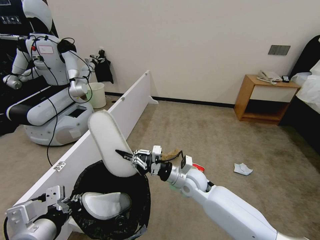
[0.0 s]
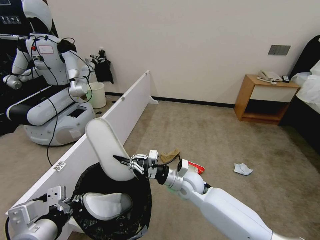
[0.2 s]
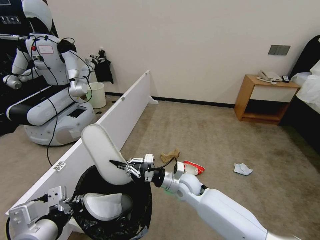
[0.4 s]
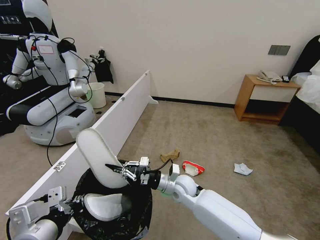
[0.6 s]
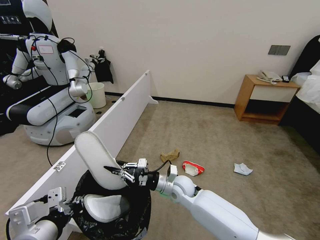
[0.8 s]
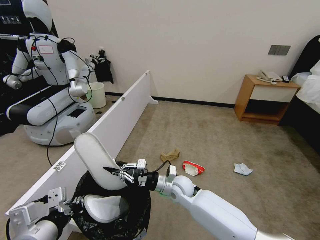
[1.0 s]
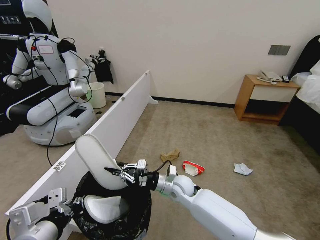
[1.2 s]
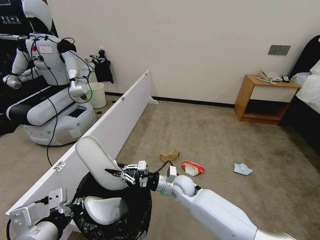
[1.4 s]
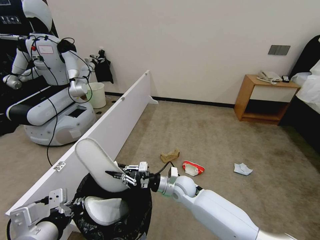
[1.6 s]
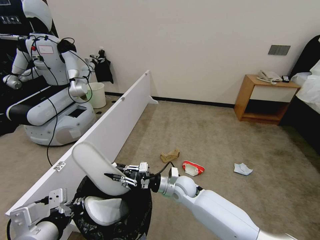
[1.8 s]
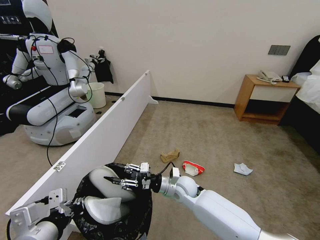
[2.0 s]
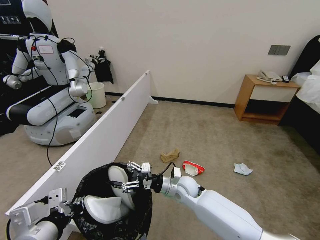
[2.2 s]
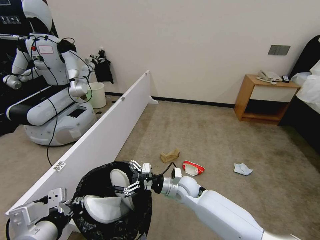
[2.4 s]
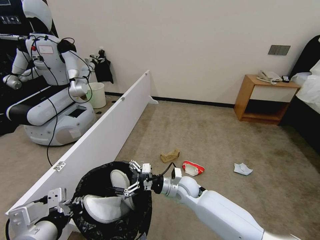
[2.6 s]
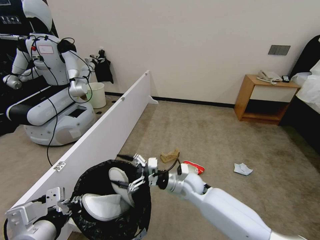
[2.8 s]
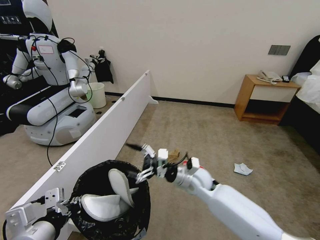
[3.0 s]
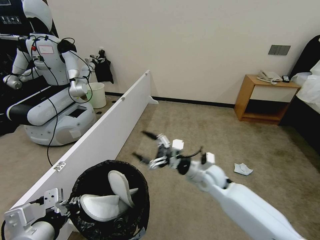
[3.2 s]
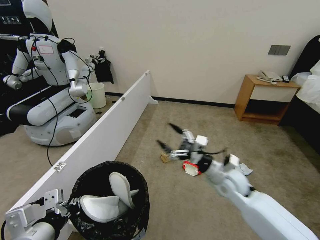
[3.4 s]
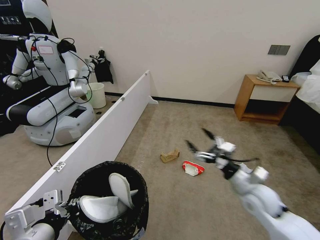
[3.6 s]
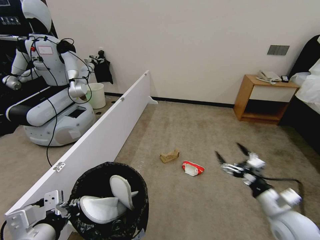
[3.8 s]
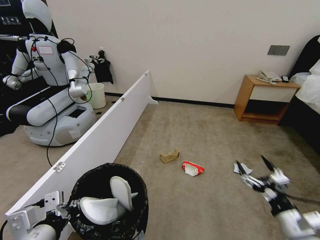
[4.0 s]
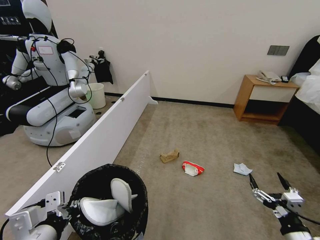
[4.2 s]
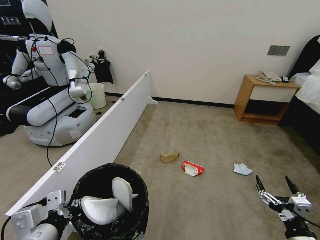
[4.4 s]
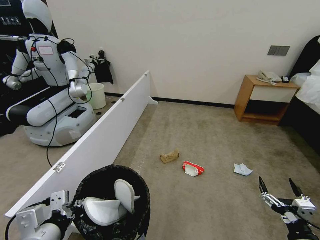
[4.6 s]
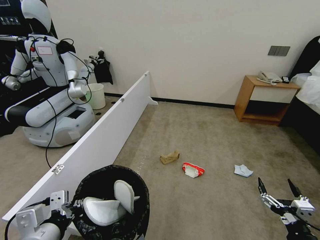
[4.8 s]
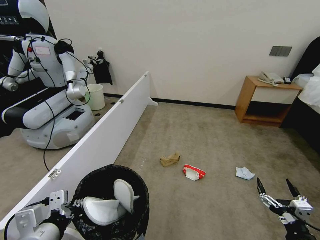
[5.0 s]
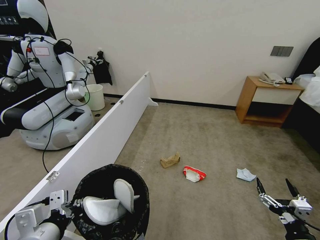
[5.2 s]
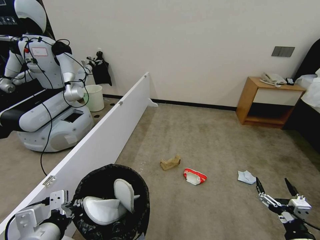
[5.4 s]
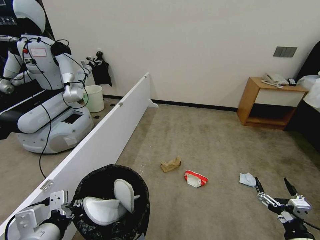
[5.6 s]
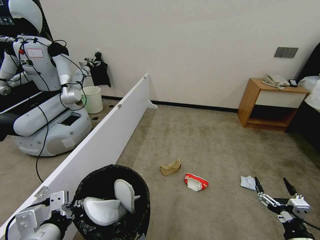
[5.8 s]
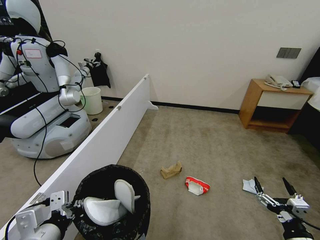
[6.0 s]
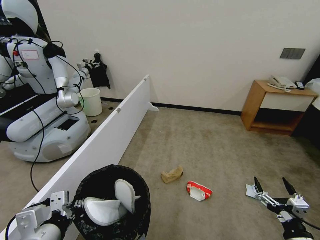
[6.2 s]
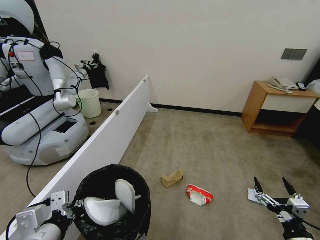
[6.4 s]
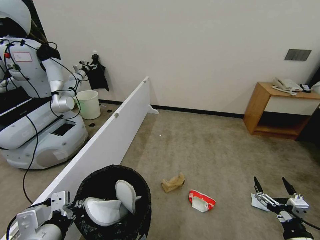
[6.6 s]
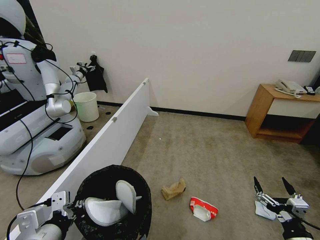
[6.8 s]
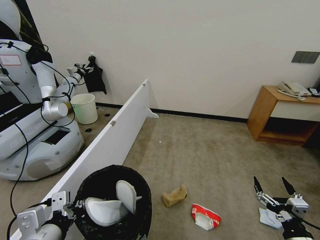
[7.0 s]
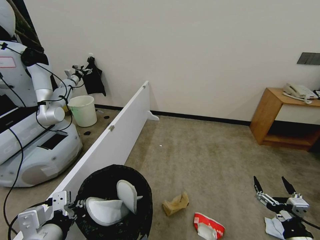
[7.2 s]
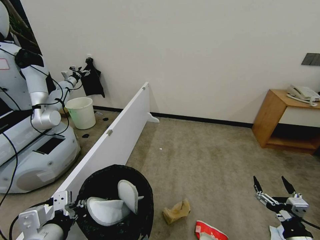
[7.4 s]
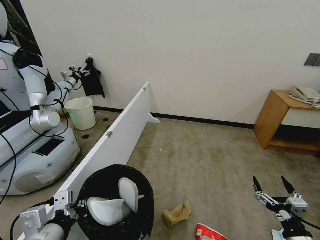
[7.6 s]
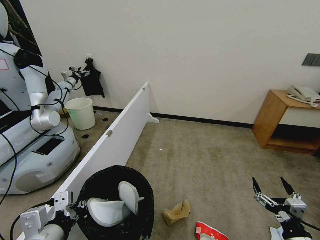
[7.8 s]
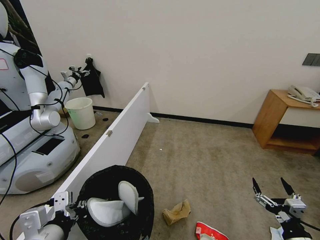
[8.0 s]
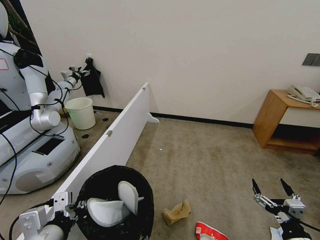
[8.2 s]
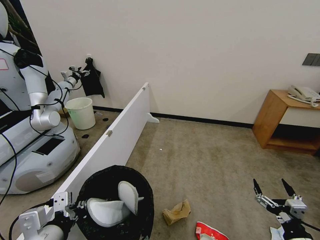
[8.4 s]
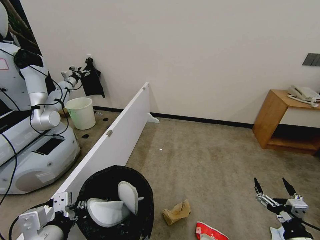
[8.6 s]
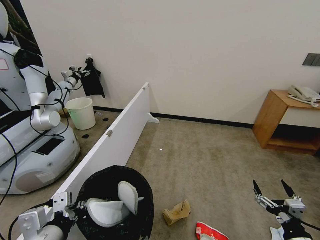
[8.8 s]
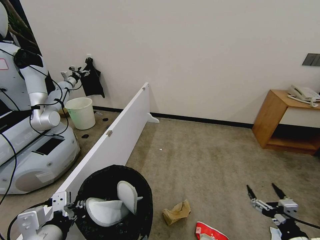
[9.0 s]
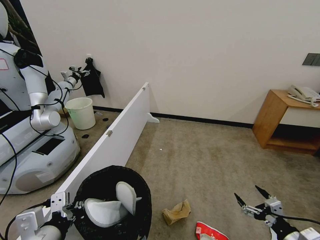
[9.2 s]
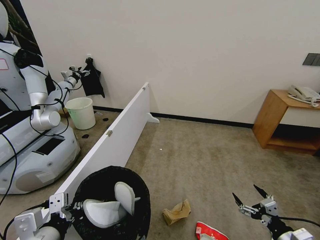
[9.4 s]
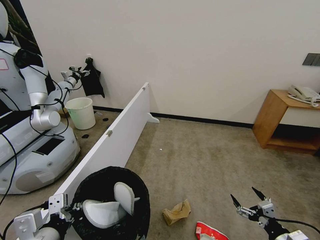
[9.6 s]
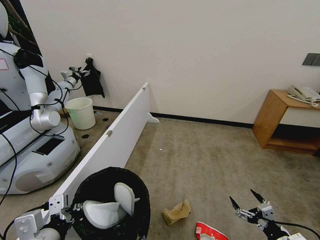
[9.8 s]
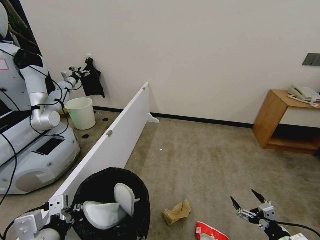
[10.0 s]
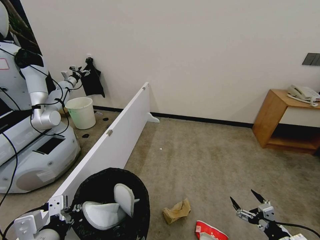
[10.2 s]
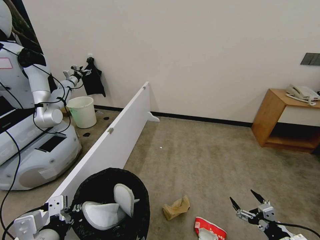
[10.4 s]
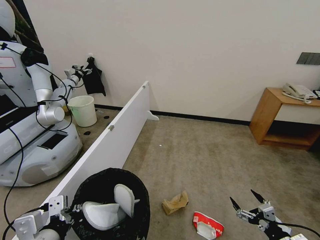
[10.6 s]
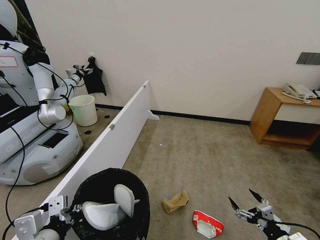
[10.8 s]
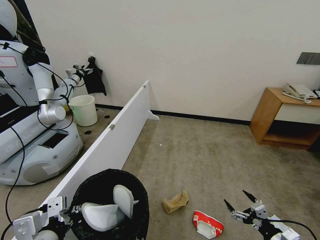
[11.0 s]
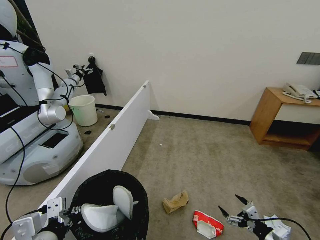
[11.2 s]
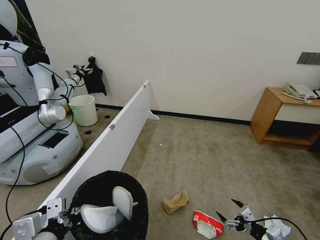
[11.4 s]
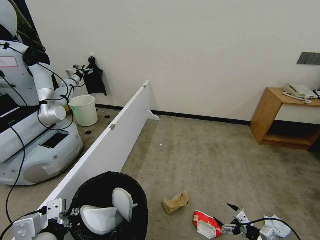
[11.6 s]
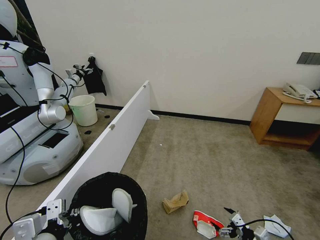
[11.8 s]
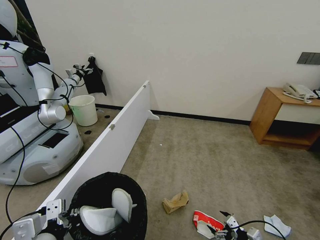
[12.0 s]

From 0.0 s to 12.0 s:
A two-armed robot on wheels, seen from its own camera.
Task of the whole recording: Pick up the trash bin, then pick up the garbage from the floor and place it into the trash bin.
From 0.0 s to 1.6 s: The right gripper shifts about 5 cm downward.
From 1.6 s to 3.0 s: The right gripper shifts some 5 cm upward, and opens its fingers.
From 3.0 s to 4.4 s: The right gripper goes roughly 35 cm backward and to the right.
From 7.6 s to 9.0 s: The grippers move only a little.
From 9.0 s to 10.4 s: The grippers make only small movements.
From 10.4 s to 12.0 s: The right gripper goes roughly 10 cm downward and forward.

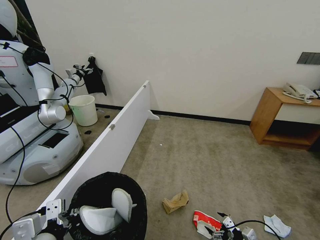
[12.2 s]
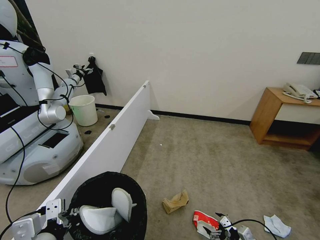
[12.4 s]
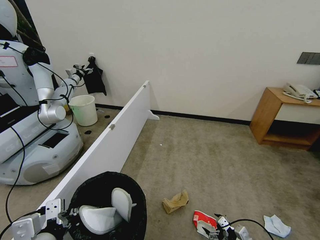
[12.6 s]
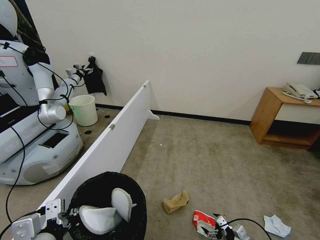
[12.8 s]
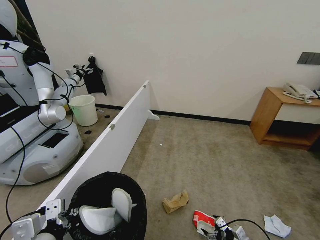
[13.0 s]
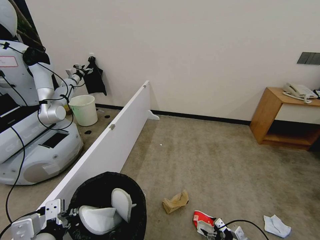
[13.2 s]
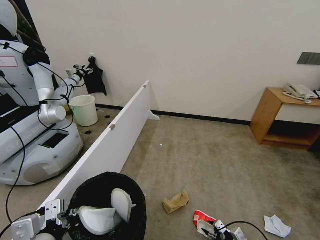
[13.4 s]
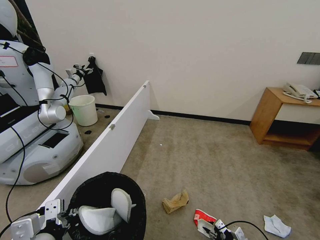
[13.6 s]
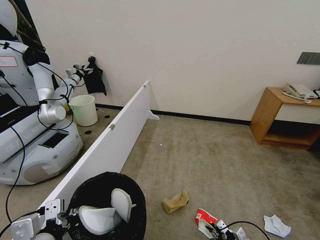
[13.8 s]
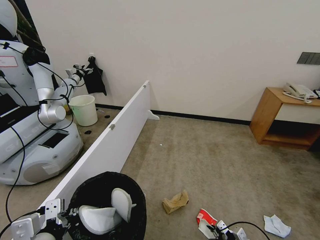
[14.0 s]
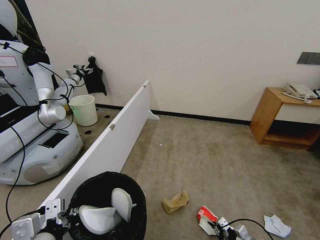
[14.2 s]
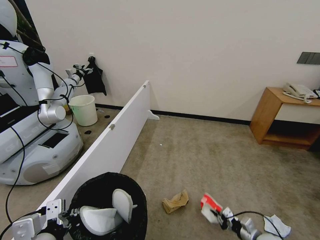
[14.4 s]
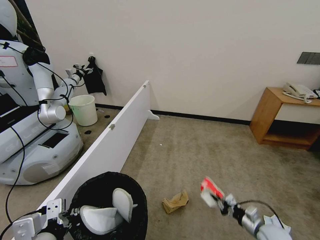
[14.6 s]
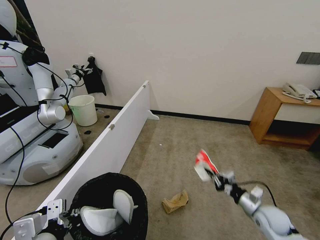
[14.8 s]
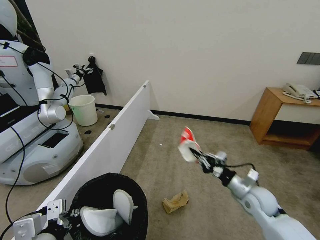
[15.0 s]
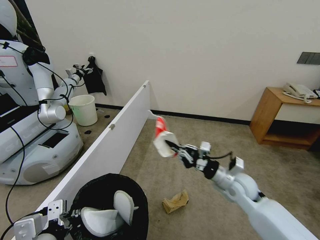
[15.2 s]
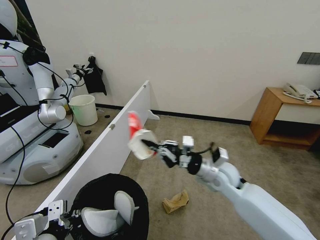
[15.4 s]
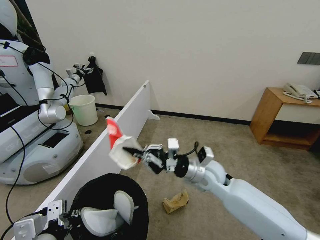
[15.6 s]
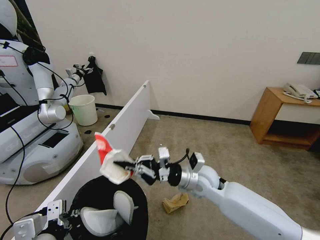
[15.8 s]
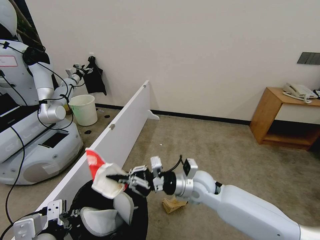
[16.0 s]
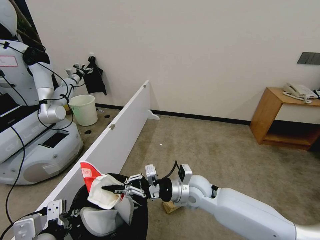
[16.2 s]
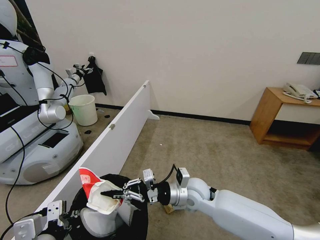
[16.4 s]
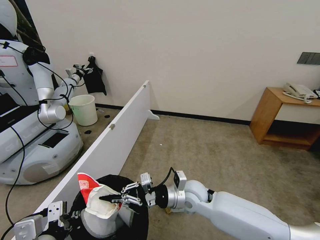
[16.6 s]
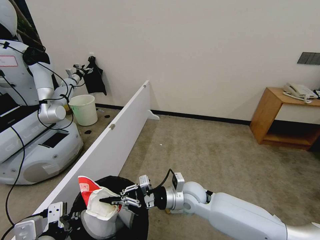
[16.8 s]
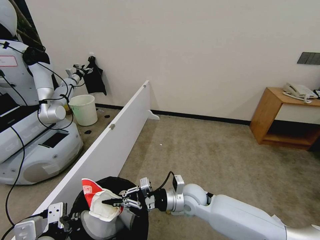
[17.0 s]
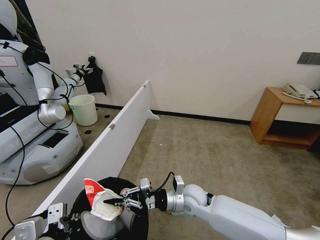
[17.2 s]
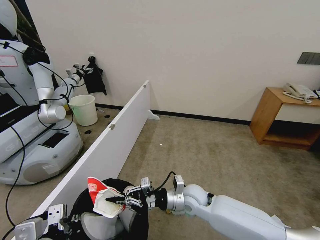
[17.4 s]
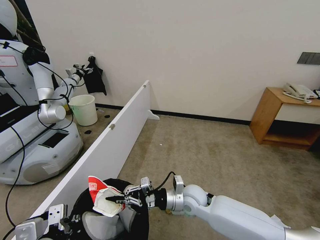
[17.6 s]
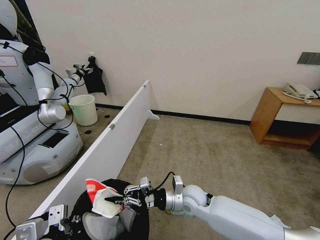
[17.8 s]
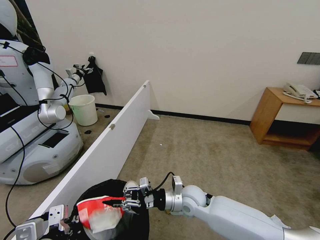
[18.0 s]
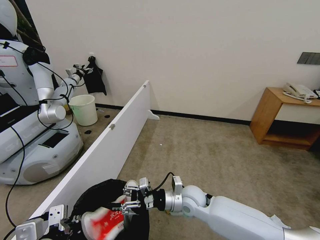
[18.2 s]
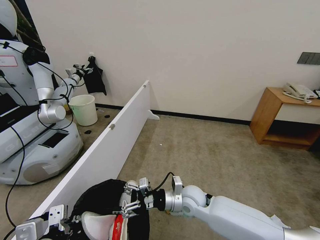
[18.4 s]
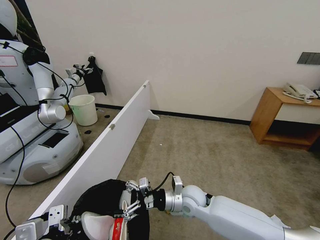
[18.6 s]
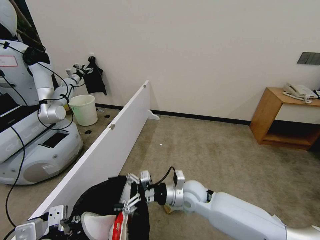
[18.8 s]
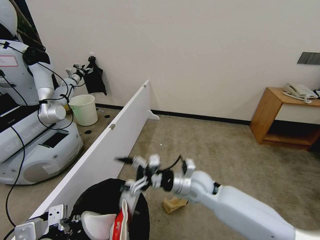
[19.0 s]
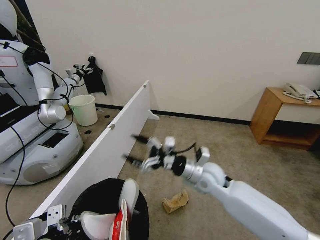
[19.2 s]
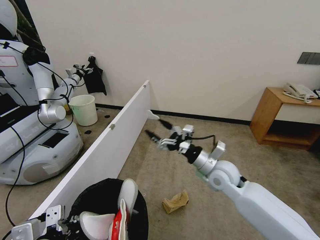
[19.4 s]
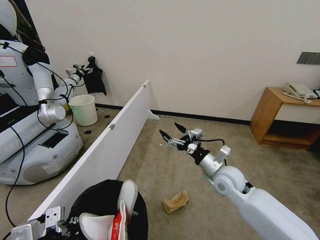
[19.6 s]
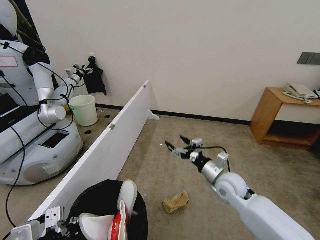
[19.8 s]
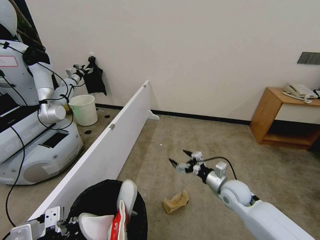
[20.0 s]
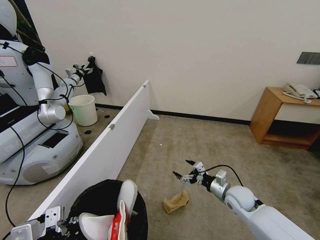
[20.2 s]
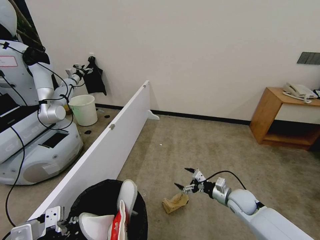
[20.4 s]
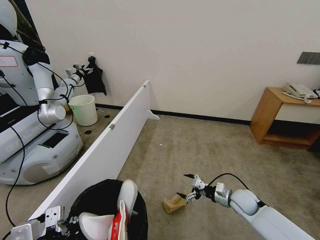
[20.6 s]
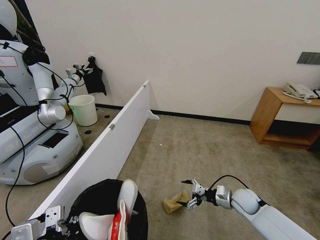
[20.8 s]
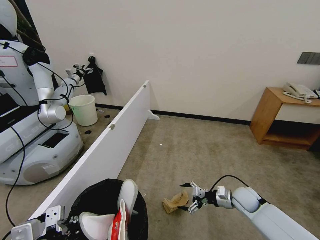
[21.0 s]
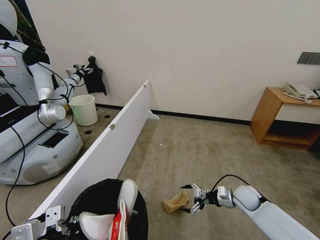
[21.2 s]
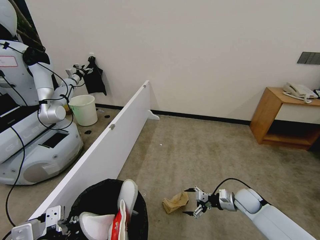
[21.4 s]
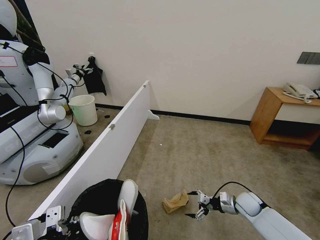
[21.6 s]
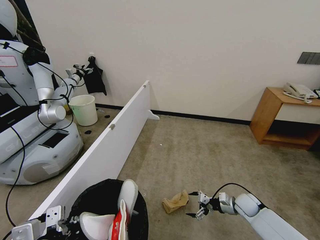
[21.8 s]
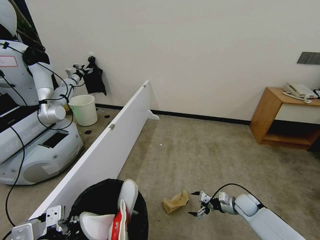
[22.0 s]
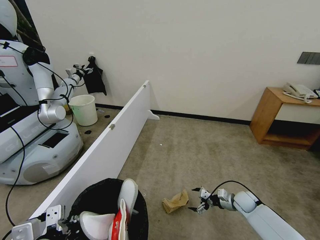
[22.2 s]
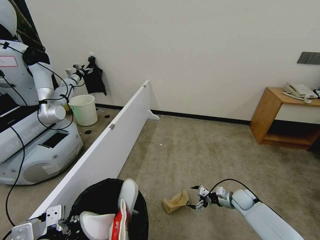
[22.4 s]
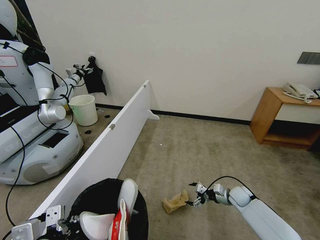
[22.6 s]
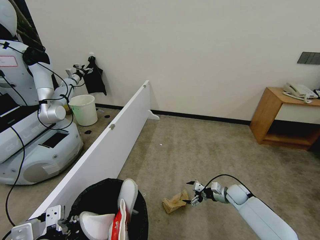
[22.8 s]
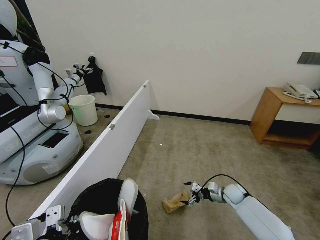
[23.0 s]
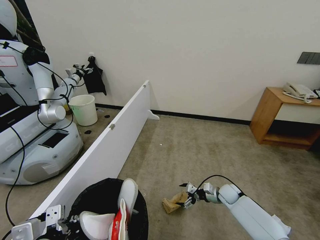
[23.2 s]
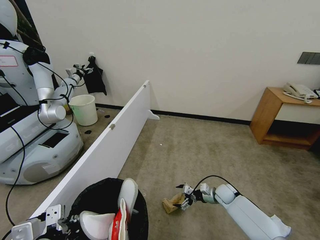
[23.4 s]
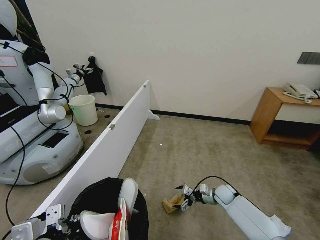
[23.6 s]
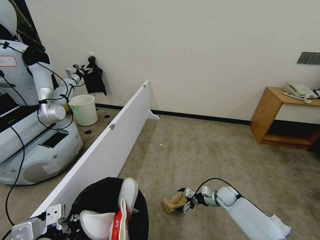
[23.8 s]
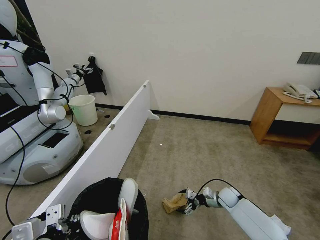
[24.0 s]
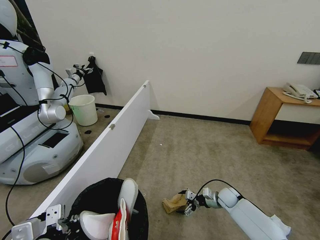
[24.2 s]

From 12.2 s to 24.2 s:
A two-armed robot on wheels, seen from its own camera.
Task of the whole recording: Pick up the trash bin, then pick up the garbage from the floor and place it into the trash bin.
From 12.2 s to 13.8 s: The right gripper is displaced downward by about 5 cm, and closes its fingers.
From 13.8 s to 15.2 s: The right gripper travels upward, to the left and forward by some 35 cm.
From 15.2 s to 16.6 s: The right gripper shifts roughly 15 cm to the left.
From 16.6 s to 18.2 s: The right gripper opens its fingers.
From 18.2 s to 19.8 s: The right gripper travels to the right by some 15 cm, and opens up.
From 19.8 s to 21.2 s: The right gripper moves downward and to the right, approximately 15 cm.
From 21.2 s to 22.6 s: The right gripper heads downward, covering some 5 cm.
